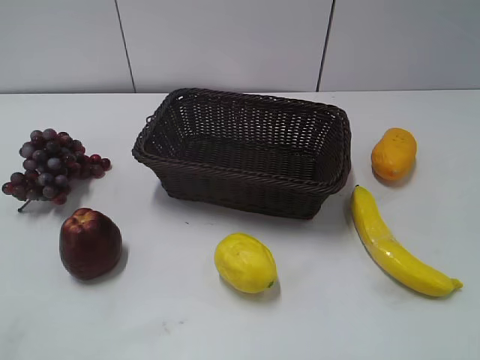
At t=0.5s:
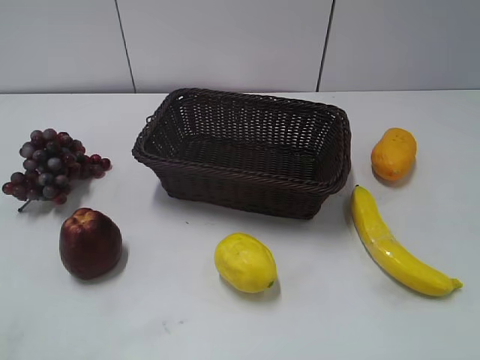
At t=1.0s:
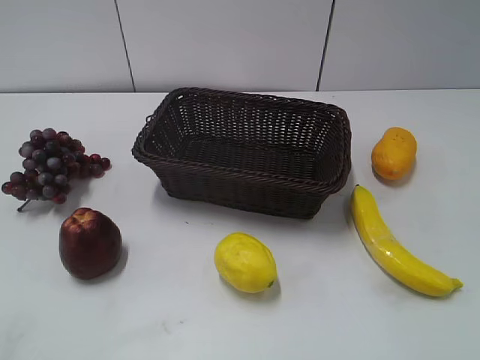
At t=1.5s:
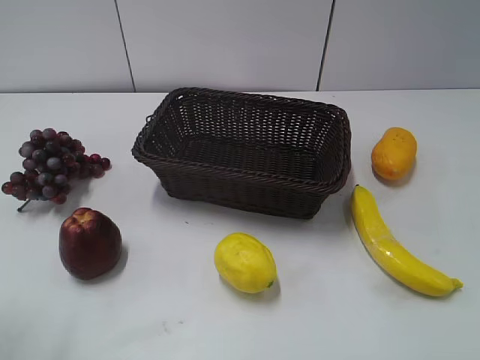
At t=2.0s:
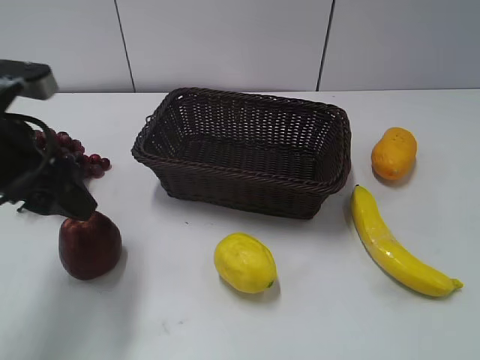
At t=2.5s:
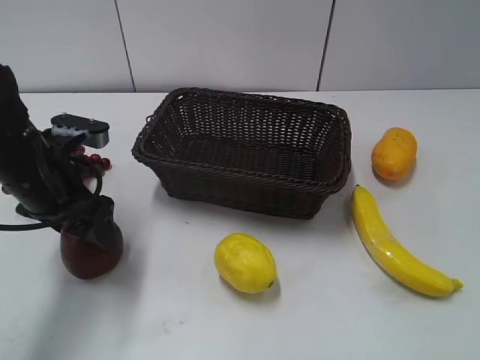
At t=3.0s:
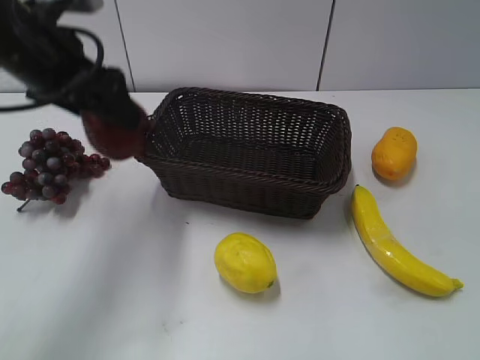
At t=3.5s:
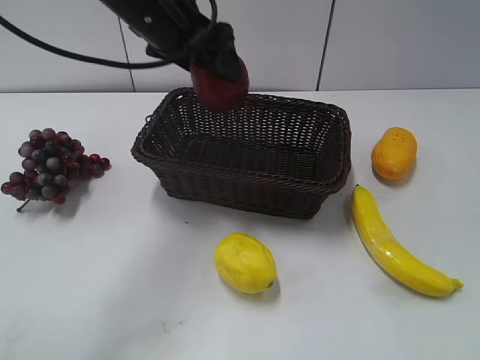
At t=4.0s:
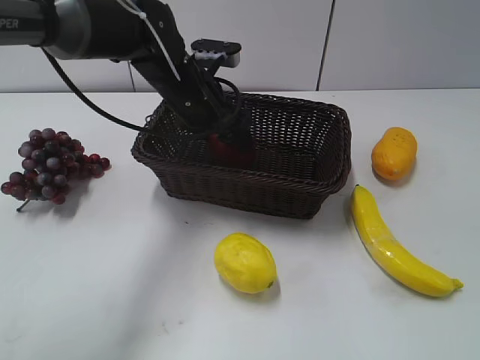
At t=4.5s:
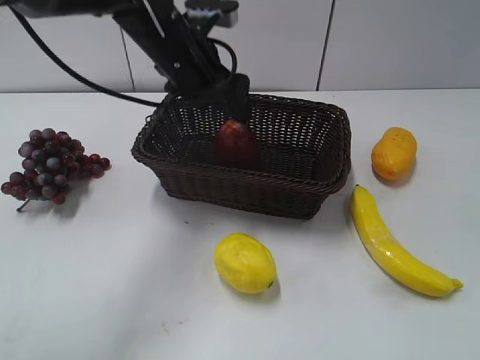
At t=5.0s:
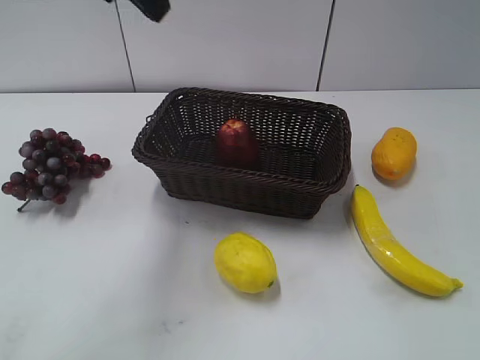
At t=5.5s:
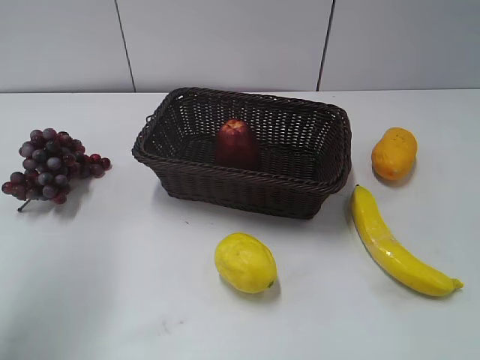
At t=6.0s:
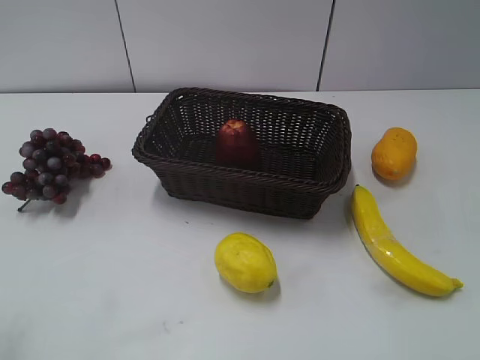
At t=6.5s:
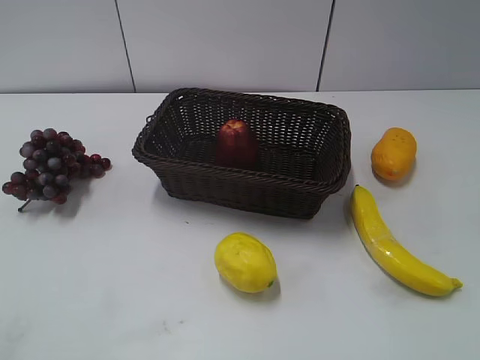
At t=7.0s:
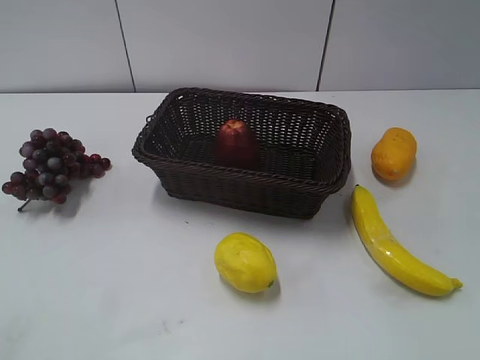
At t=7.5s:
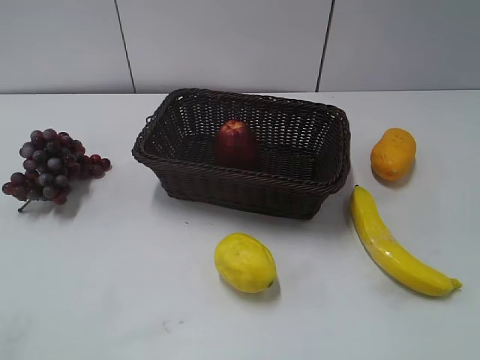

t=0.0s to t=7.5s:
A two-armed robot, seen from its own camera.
Step, t=2.5s to t=4.0s: Place the apple in the basket with left gripper.
t=2.0s to t=4.0s: The left gripper heads to the right and forward, covering roughly 25 cm.
t=4.0s to t=5.5s: The left gripper is displaced to the left, upward and backward by approximately 35 cm, and opens, then closes once more.
t=5.5s to t=7.5s: The left gripper goes approximately 25 cm backward and downward.
